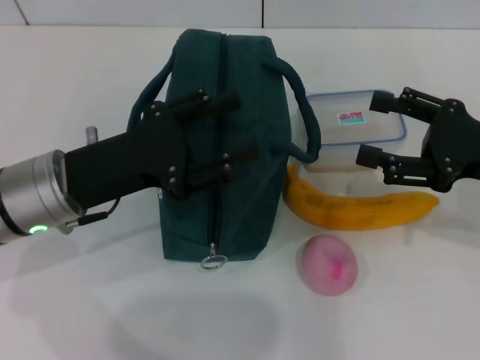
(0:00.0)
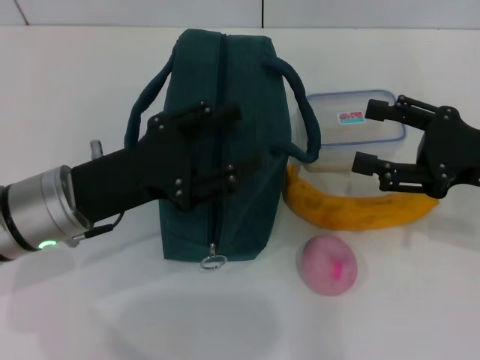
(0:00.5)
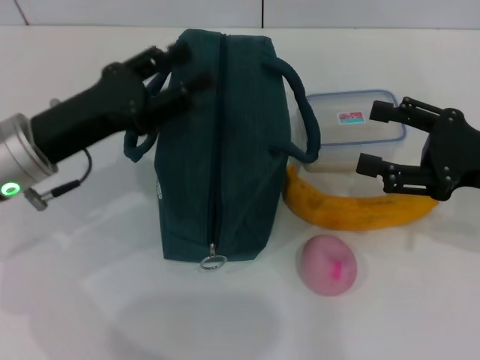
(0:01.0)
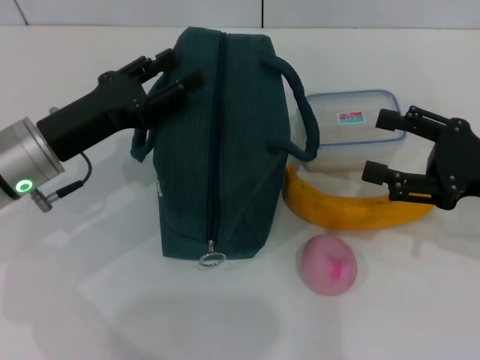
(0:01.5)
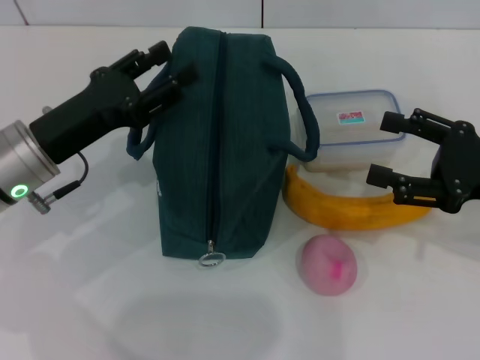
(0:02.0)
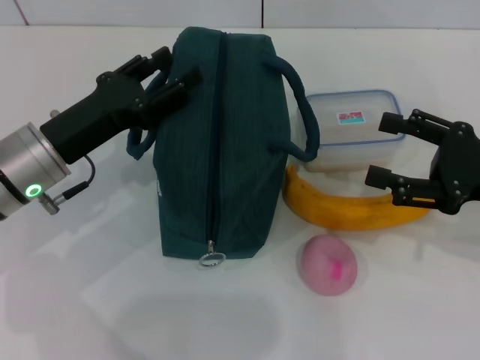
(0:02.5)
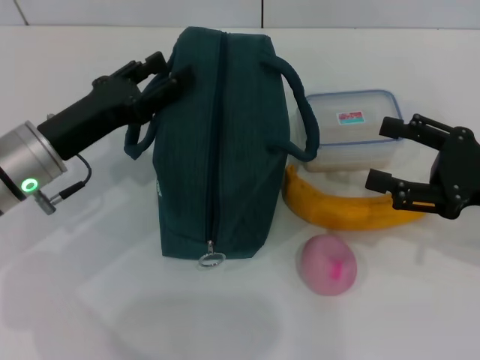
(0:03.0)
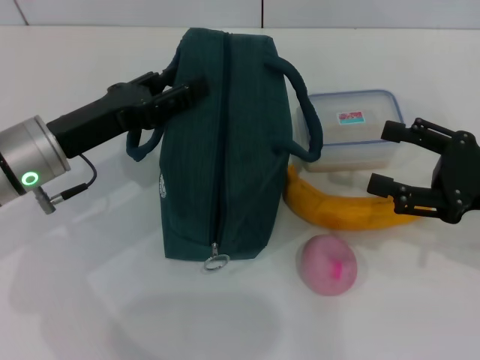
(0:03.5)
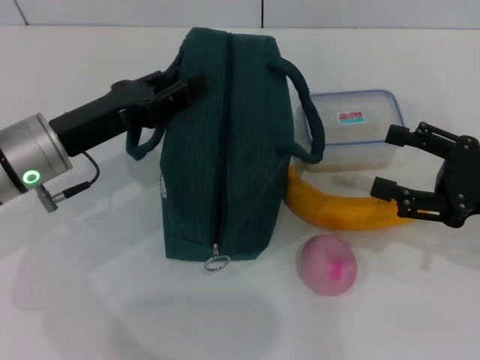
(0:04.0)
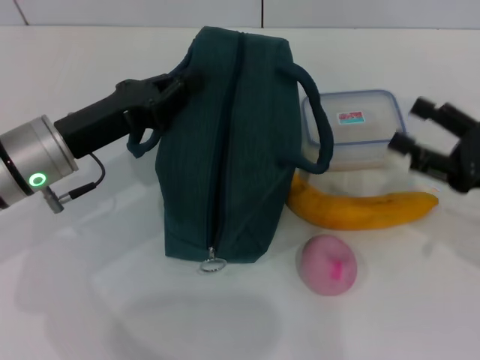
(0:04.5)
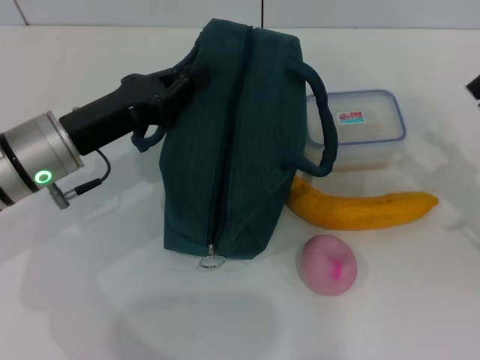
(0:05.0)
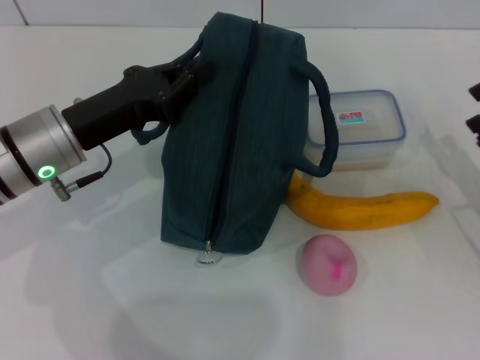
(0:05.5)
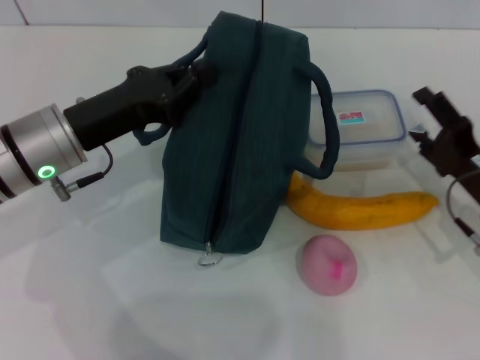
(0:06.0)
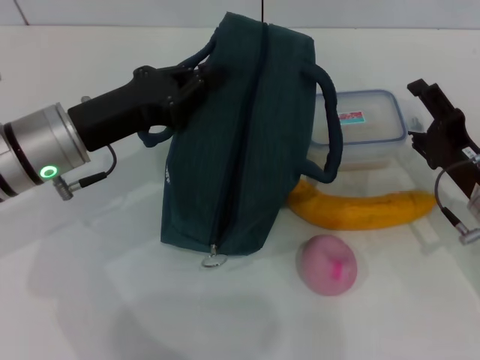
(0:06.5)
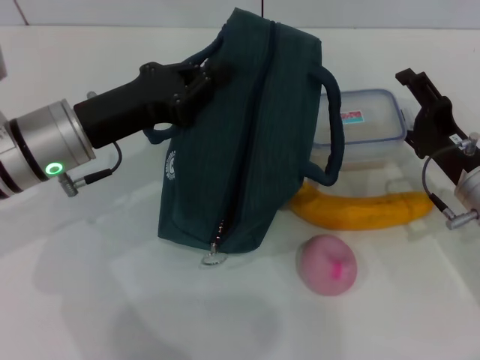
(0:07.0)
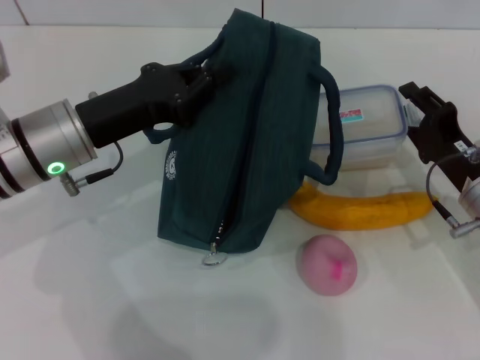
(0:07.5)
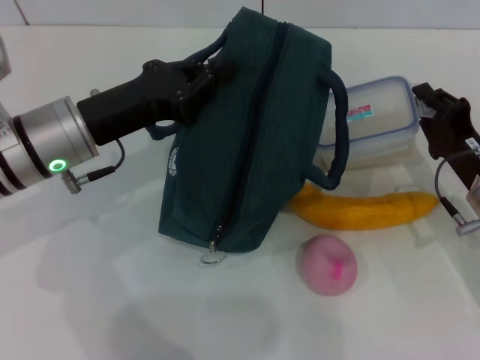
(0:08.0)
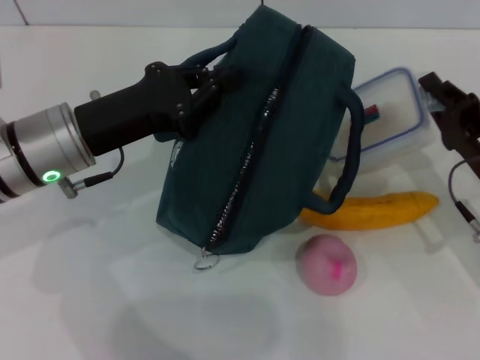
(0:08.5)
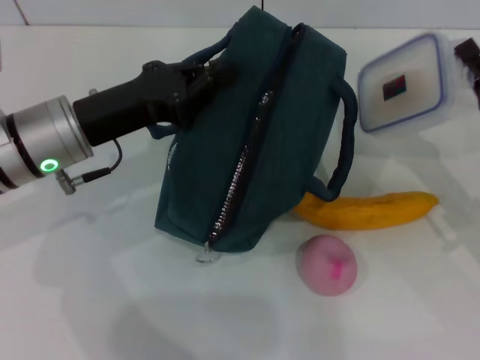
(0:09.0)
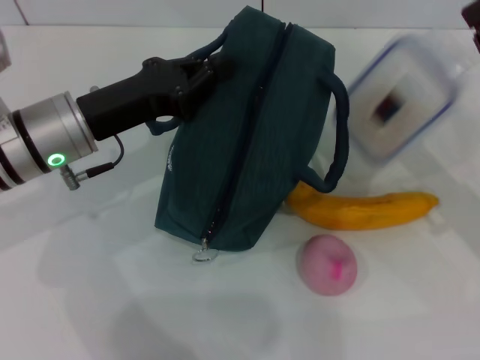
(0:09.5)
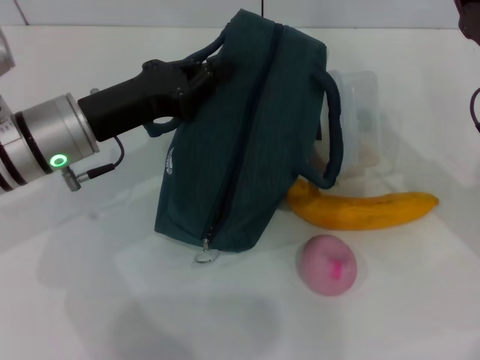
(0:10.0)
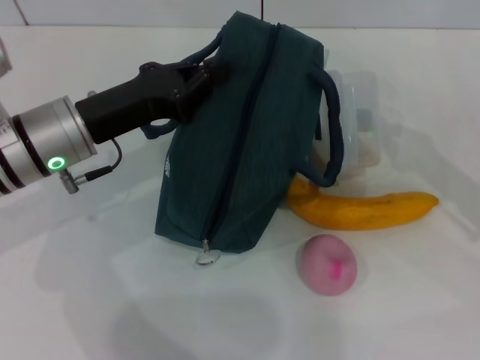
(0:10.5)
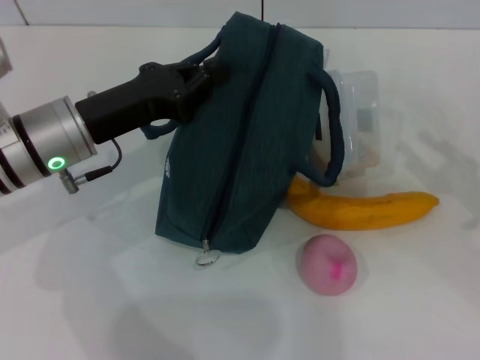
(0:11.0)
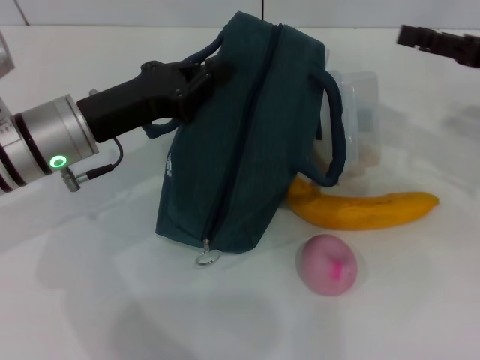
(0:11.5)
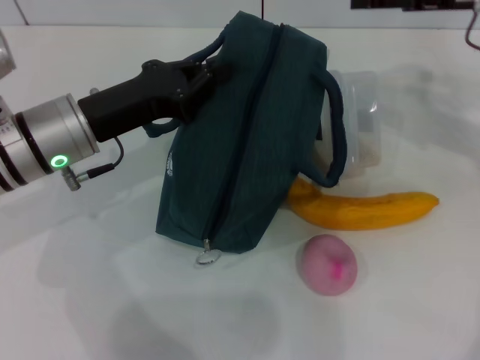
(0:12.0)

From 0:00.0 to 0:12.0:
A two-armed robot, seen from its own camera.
Step, from 0:00.0 to 0:04.5: Hold the lunch bag with your left hand.
From 0:02.0 to 0:04.0: The grippers make only small movements.
From 0:04.0 to 0:06.0: The right gripper shifts roughly 10 cm downward. The left gripper closes up.
From 0:06.0 to 0:08.0: The right gripper closes.
From 0:08.0 to 0:10.0: The right gripper goes approximately 10 cm upward.
From 0:10.0 to 0:12.0: The right gripper heads upward and forward, covering about 15 cm, and opens up.

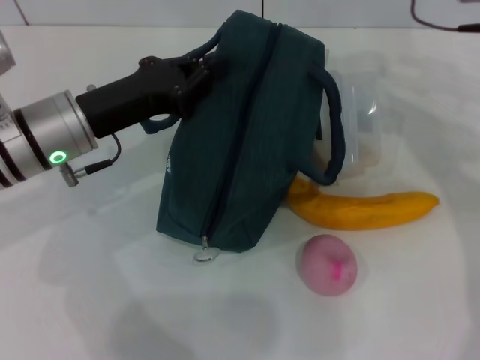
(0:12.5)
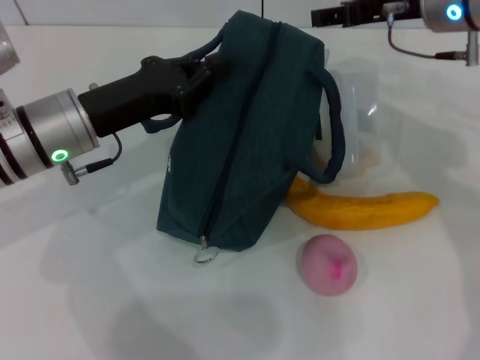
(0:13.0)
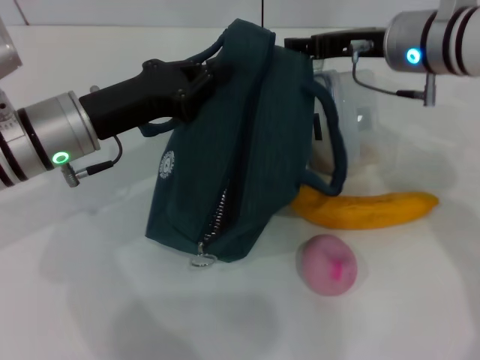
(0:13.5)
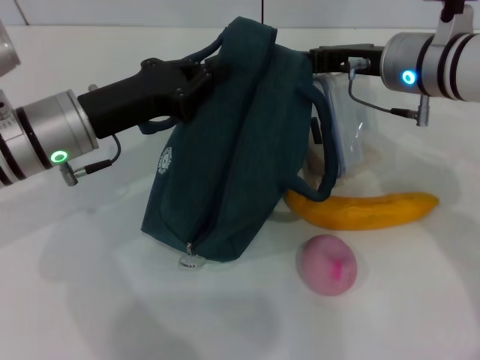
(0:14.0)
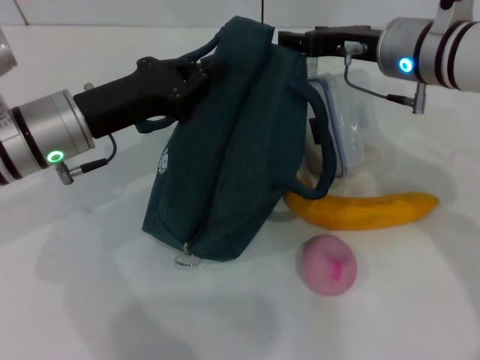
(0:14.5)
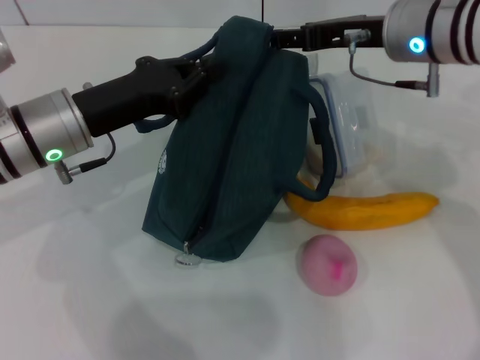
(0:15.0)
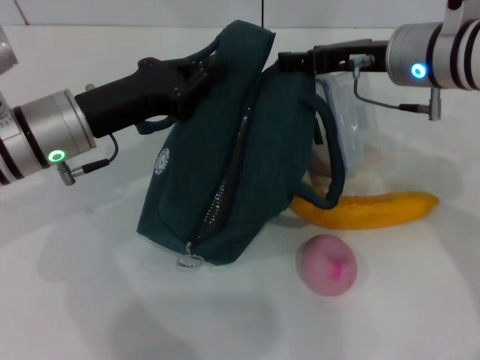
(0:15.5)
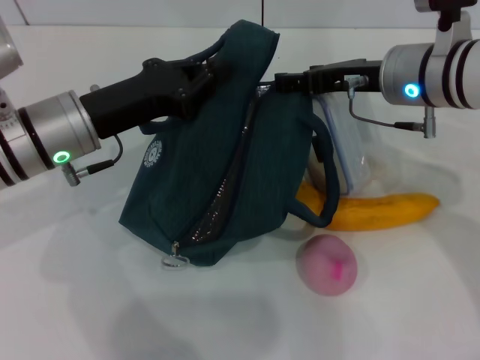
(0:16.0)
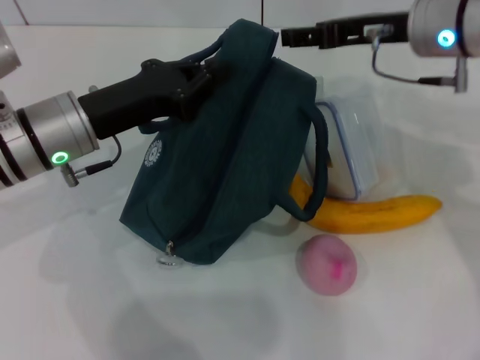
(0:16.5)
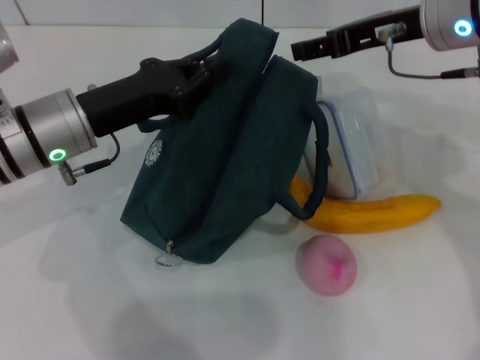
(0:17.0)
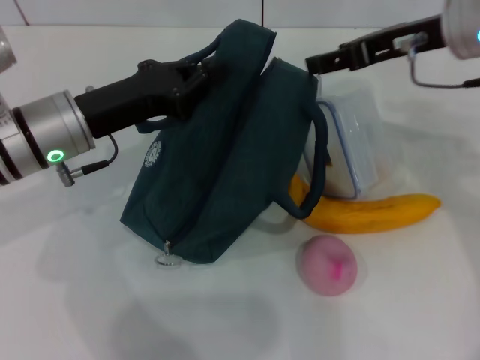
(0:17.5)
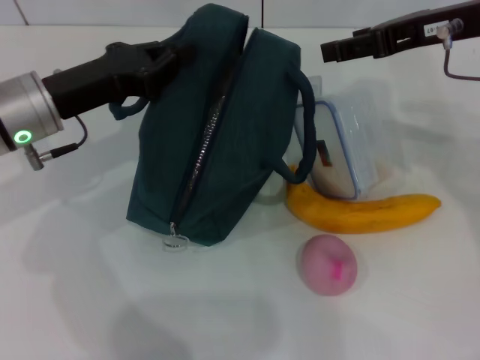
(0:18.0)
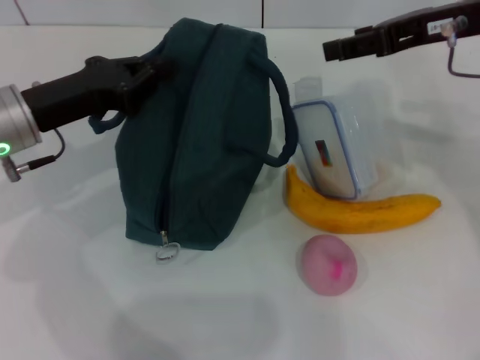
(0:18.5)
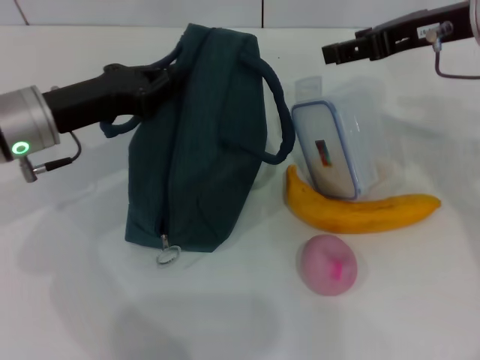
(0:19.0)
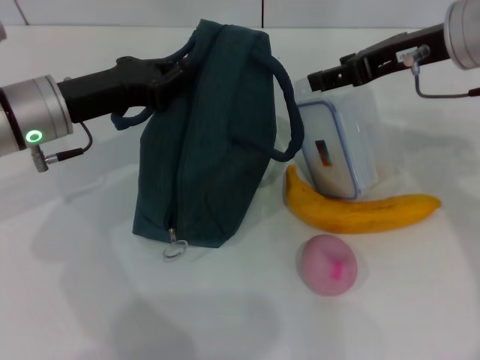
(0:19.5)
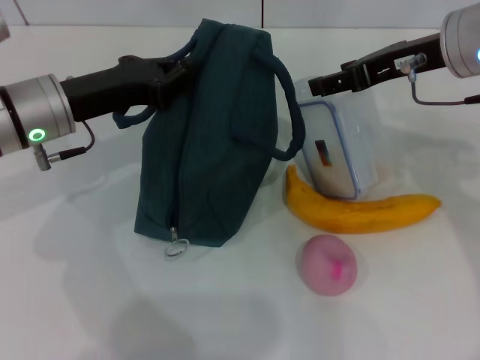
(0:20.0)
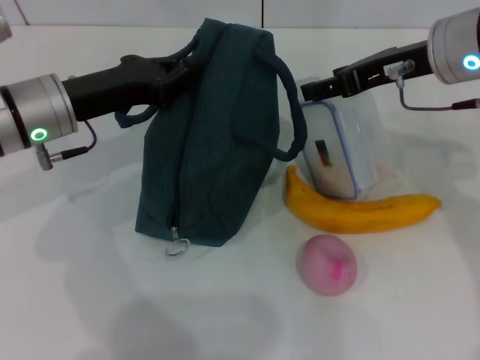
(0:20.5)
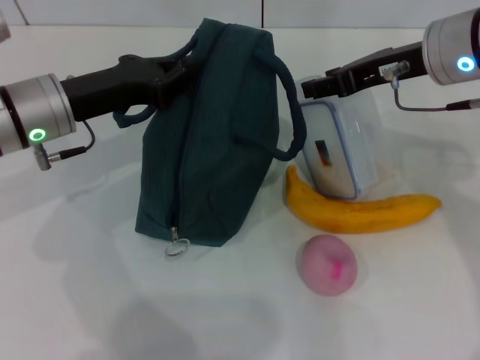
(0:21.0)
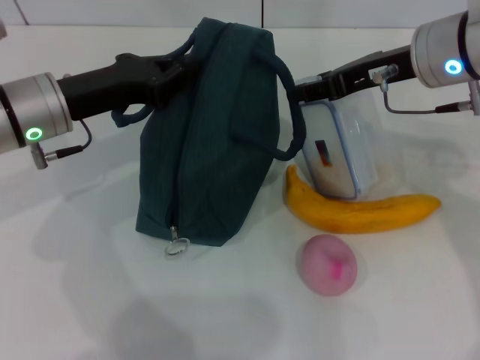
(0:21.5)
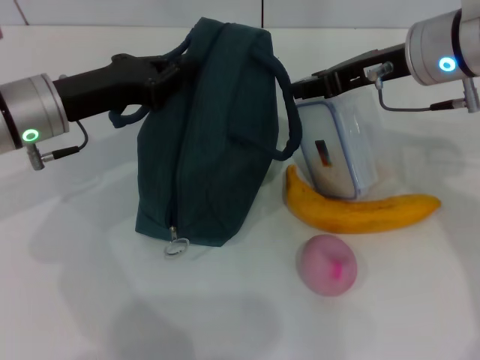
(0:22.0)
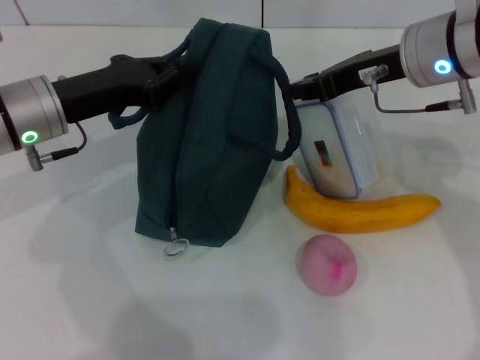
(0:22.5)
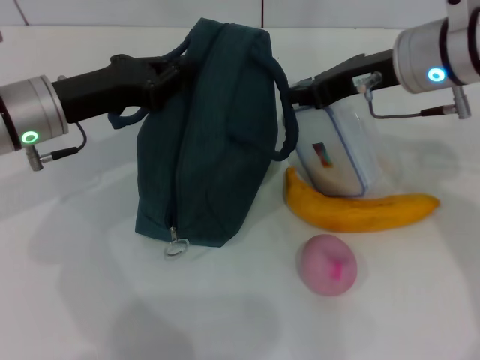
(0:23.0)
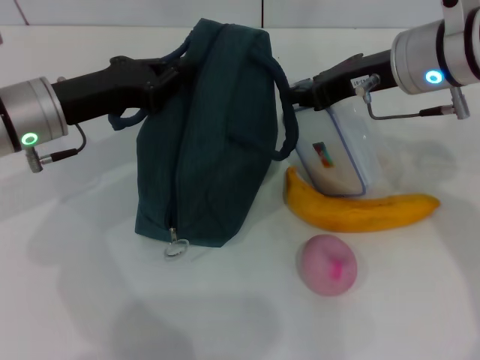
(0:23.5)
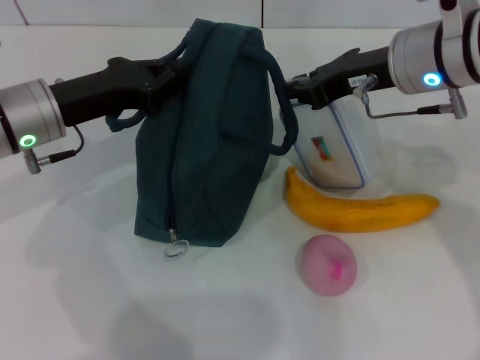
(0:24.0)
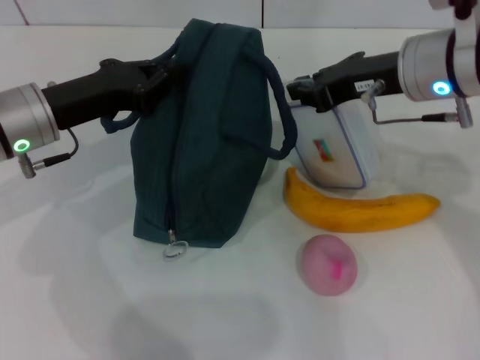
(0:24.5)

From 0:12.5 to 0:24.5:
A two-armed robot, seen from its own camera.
Step, from 0:12.5 to 0:24.0: Pick up the lunch box with your right hand.
From 0:12.5 to 0:14.5: The right gripper heads downward, covering some 10 cm.
From 0:14.5 to 0:16.5: The grippers make only small movements.
From 0:16.5 to 0:18.5: The right gripper moves approximately 5 cm. The left gripper ends up about 5 cm from where it was.
From 0:18.5 to 0:20.5: The right gripper moves approximately 5 cm.
From 0:20.5 to 0:22.5: The right gripper closes up.
From 0:22.5 to 0:24.5: The grippers stay close to where they were, moving slightly.

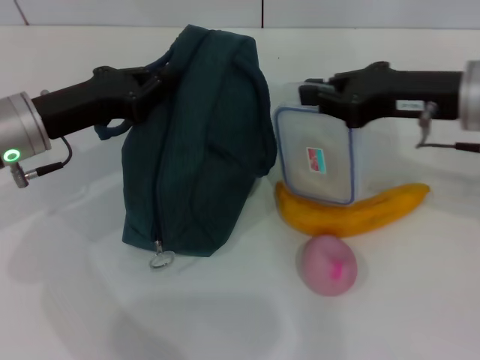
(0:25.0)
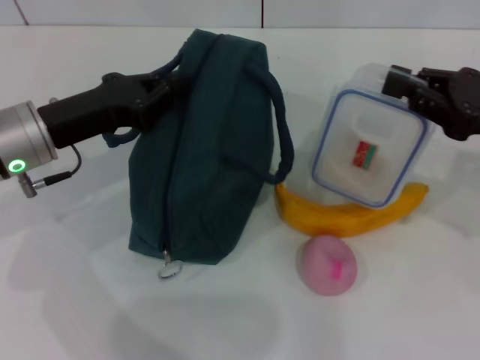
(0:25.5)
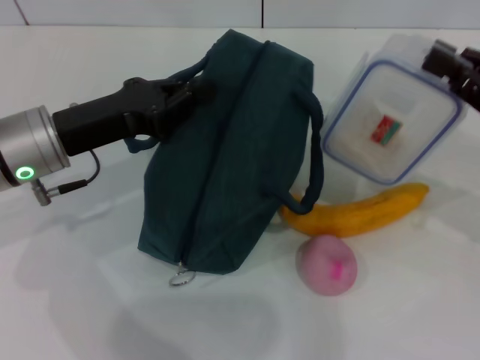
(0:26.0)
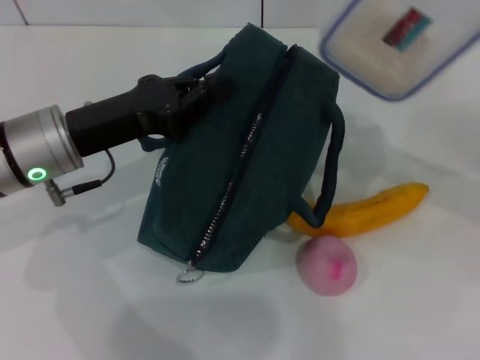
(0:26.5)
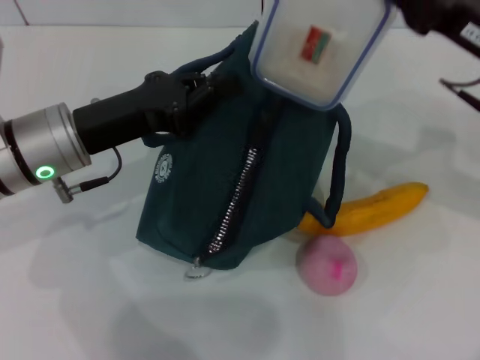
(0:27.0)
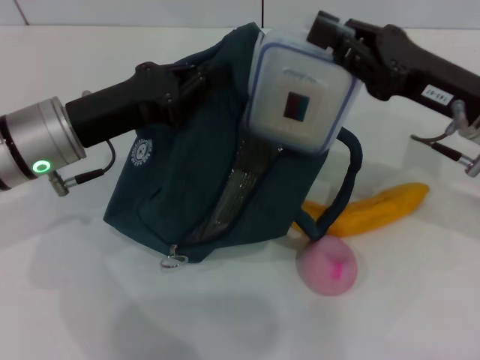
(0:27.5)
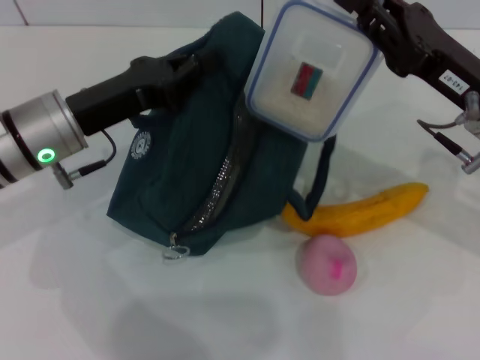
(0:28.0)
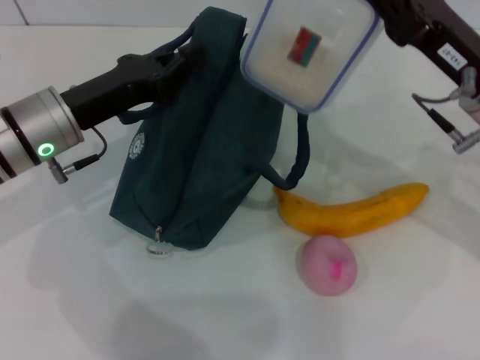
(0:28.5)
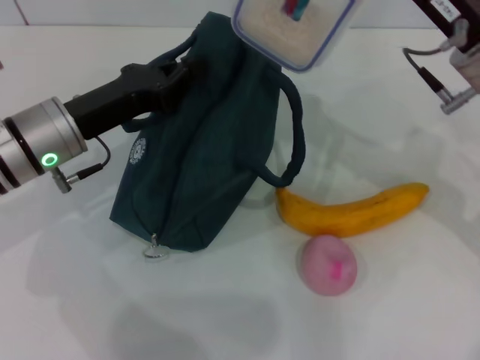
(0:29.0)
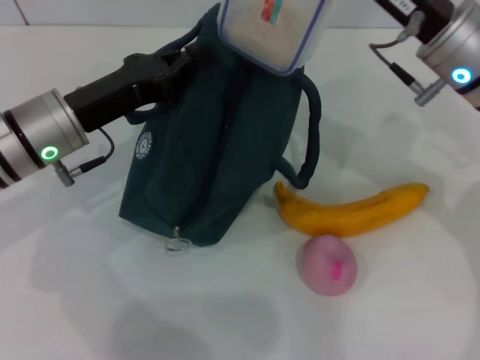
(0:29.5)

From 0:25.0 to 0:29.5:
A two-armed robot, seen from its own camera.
From 0:25.0 to 0:27.0: The right gripper travels to the right and back again, some 10 cm each way.
From 0:27.0 to 0:29.5: The right gripper travels to the left by some 5 cm.
